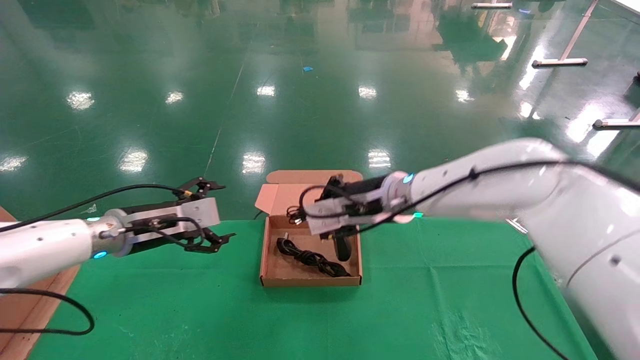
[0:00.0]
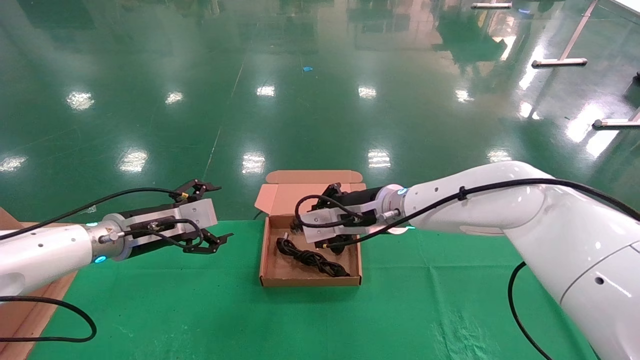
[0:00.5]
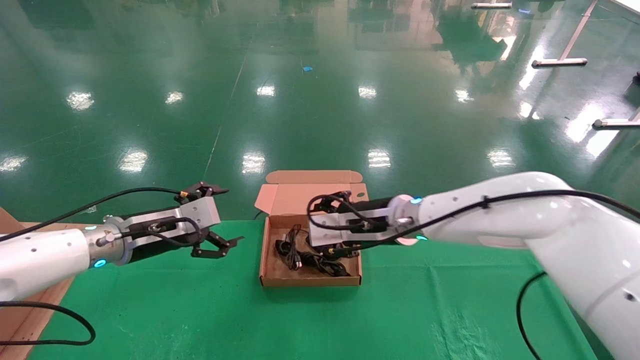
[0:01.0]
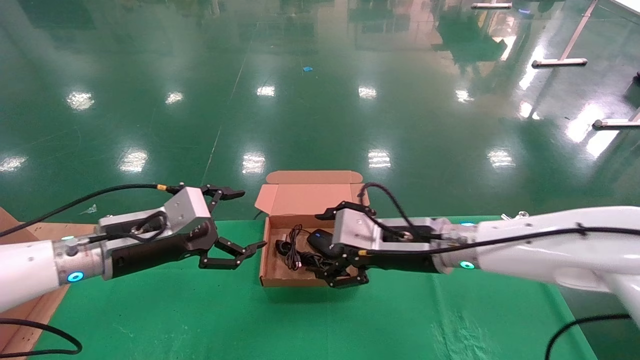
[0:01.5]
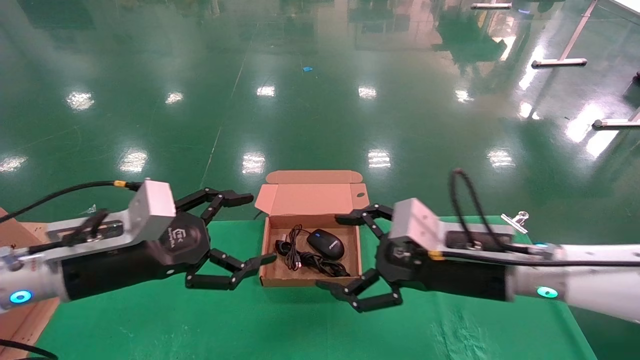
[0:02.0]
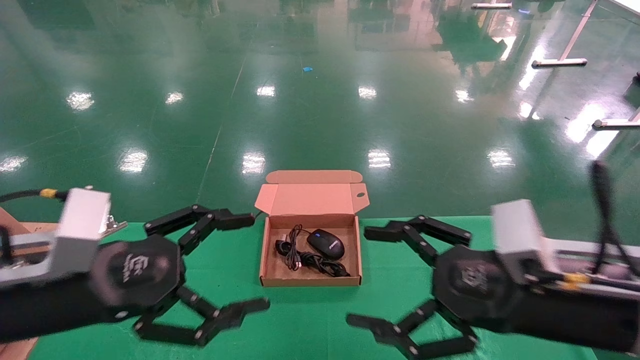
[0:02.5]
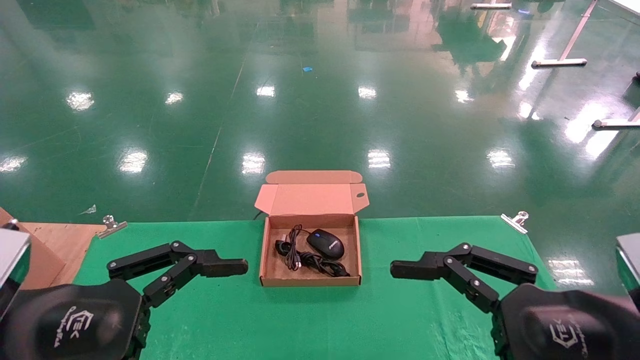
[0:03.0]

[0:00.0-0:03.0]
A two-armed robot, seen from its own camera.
0:00.0 to 0:01.5: The left gripper travels backward by approximately 5 cm, while the right gripper shifts approximately 10 cm backward and to the right, and opens up.
0:01.5 to 0:03.0: The right gripper goes some 25 cm backward and to the right. The left gripper moves backward, roughly 20 cm.
